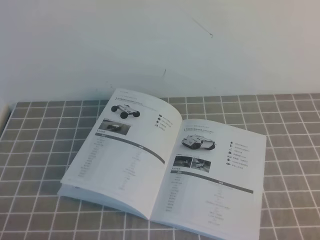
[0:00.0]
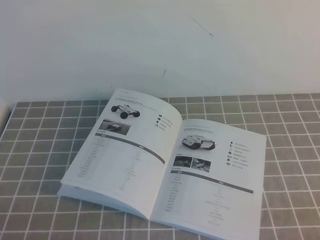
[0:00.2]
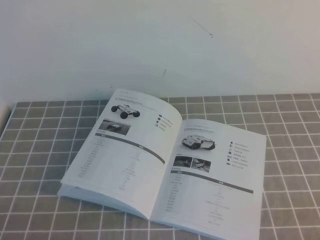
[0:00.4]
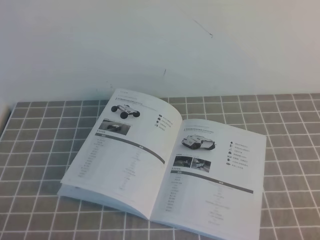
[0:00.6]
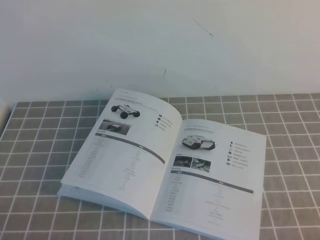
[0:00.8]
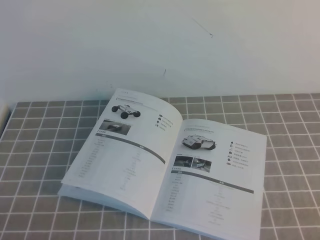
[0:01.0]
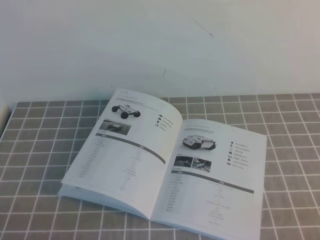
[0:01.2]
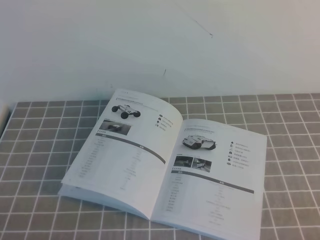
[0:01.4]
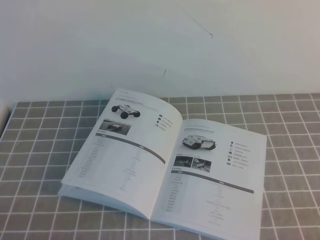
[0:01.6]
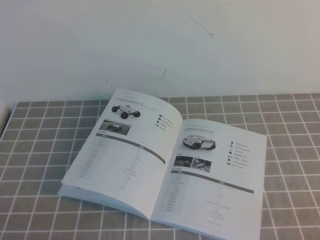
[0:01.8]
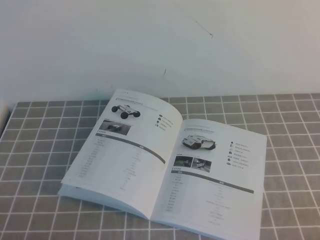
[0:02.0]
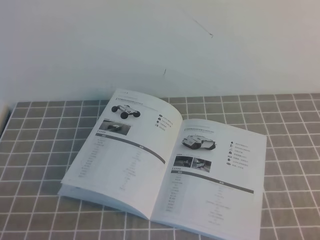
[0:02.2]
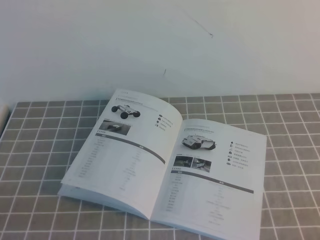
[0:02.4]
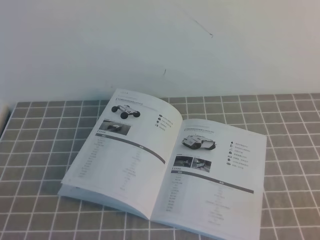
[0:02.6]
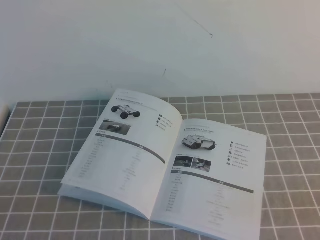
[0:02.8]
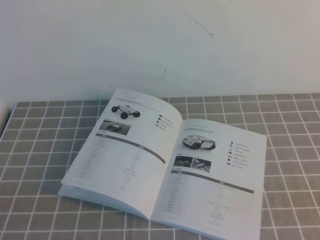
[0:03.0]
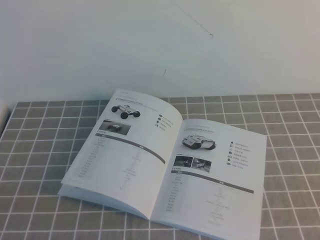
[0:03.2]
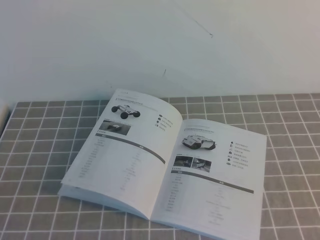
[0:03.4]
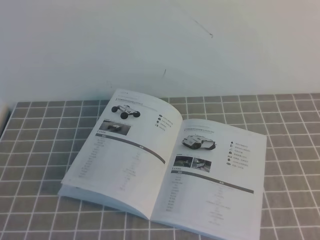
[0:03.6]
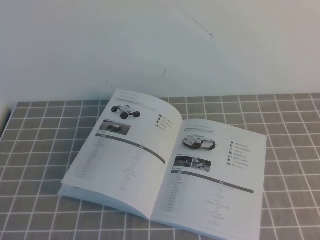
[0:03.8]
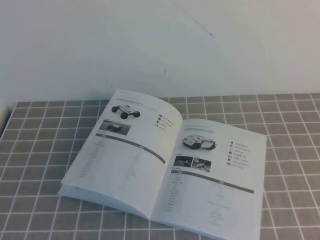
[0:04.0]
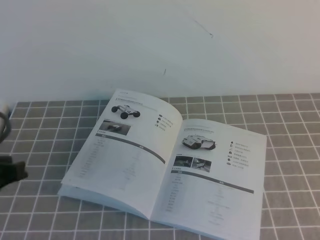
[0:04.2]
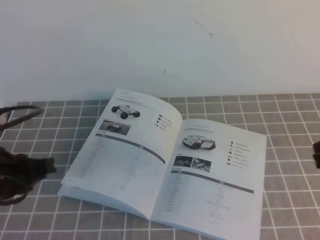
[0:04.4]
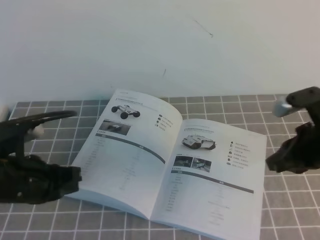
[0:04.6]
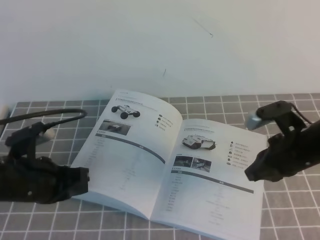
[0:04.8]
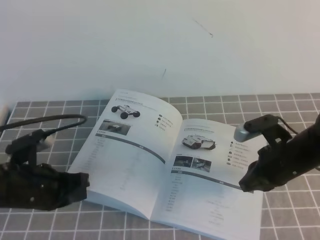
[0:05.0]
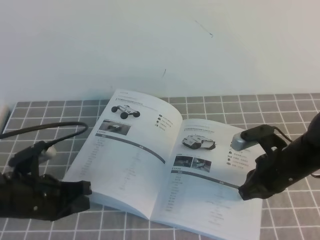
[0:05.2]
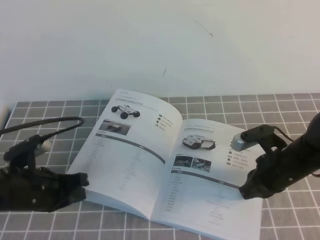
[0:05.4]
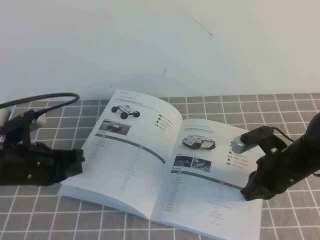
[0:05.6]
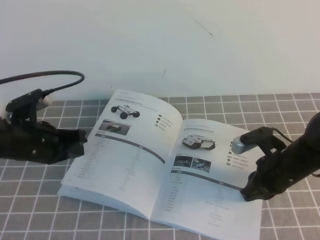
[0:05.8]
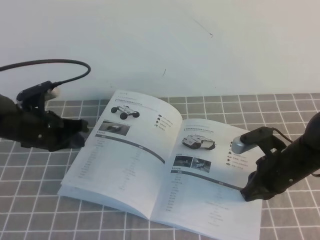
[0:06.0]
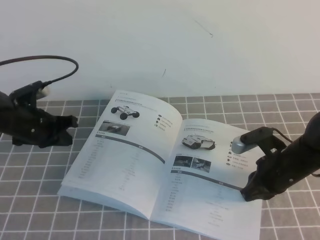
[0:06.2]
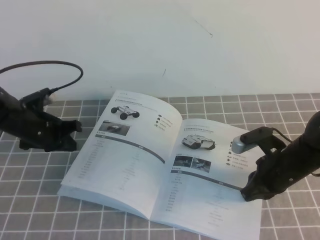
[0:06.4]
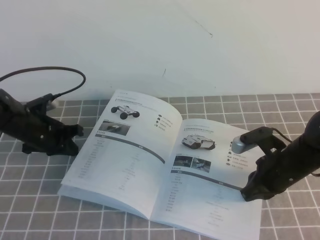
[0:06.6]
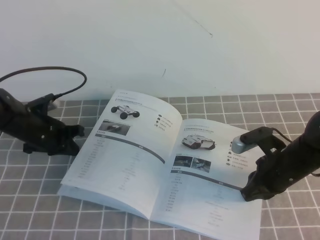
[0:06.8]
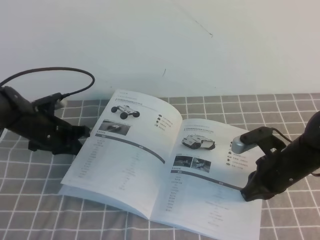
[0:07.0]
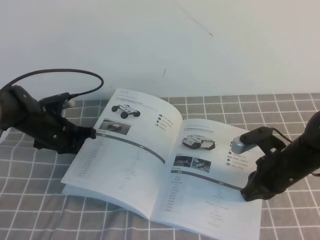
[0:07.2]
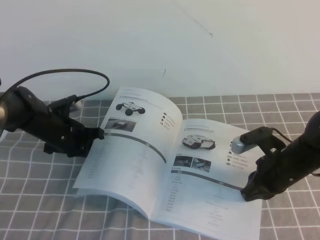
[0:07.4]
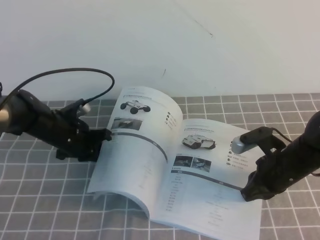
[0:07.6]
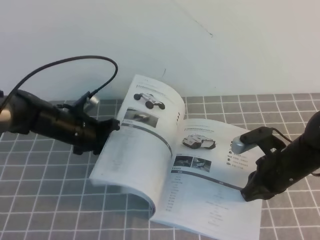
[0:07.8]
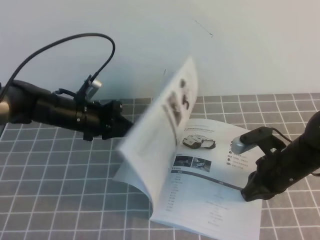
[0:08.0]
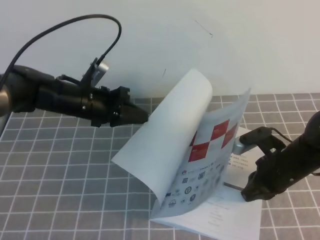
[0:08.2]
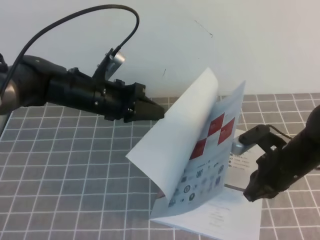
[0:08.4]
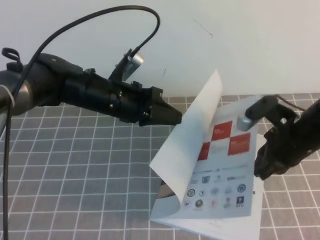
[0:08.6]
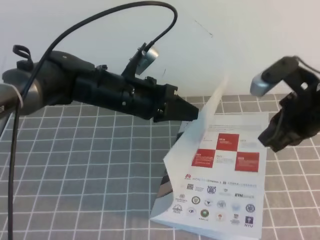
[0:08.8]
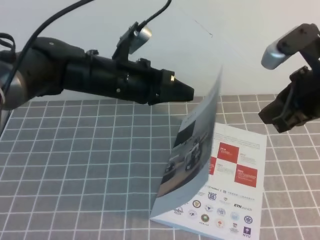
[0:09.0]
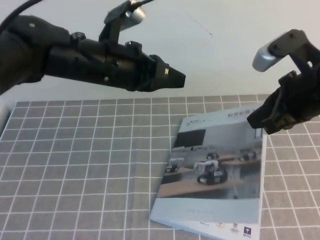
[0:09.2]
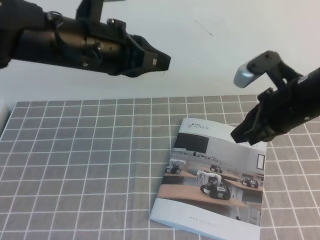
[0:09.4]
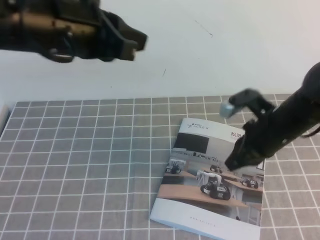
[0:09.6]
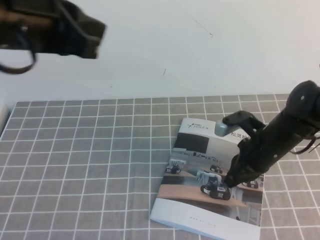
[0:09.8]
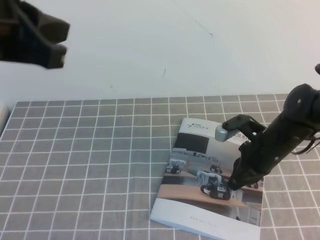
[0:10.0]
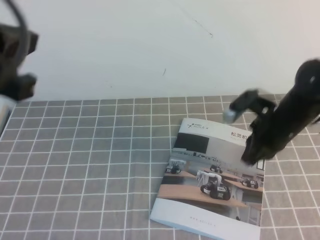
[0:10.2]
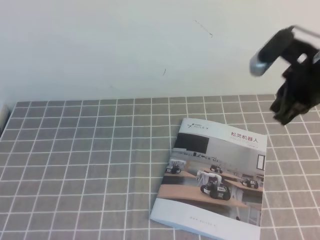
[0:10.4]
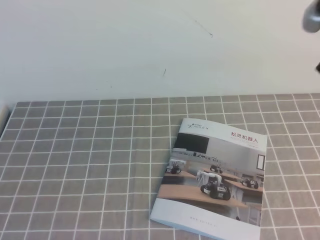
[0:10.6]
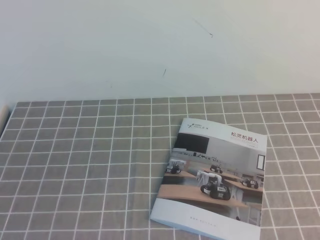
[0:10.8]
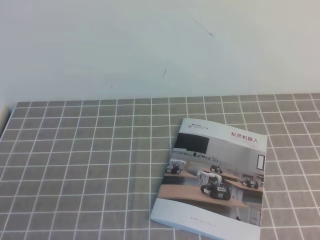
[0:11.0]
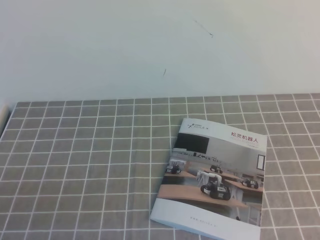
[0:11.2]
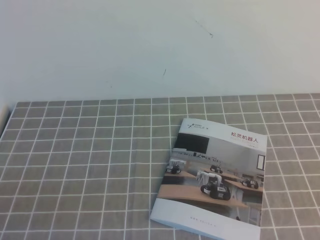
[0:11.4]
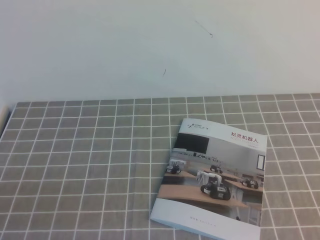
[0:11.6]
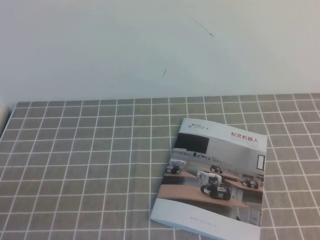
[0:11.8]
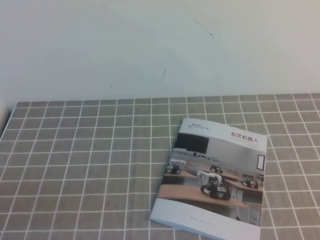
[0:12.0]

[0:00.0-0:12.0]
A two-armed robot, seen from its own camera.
Task of the whole recording: on the grey tablecloth, hold the book with one hand and close it with the other.
0:00.0 to 0:01.6: Neither gripper changes place.
0:03.0 to 0:04.4: Both grippers move forward, about 20 cm.
0:04.4 to 0:06.0: The right gripper is displaced downward, forward and to the left by some 20 cm. The left gripper is displaced forward and downward by approximately 15 cm.
0:06.0 to 0:07.6: The left gripper goes approximately 10 cm downward and forward.
0:07.6 to 0:09.0: The right gripper travels upward by approximately 20 cm; the left gripper is displaced upward and to the right by about 20 cm.
0:09.0 to 0:10.4: The left gripper moves backward, to the left and upward, roughly 30 cm. Meanwhile the right gripper reaches about 15 cm downward, then returns.
0:10.4 to 0:12.0: The left gripper moves downward and backward, some 20 cm. Meanwhile the right gripper shifts some 25 cm backward.
